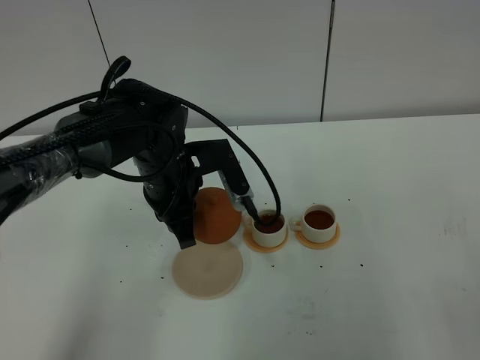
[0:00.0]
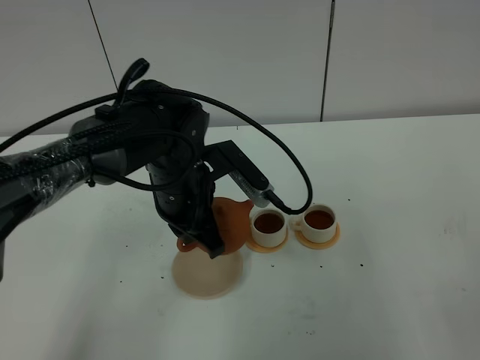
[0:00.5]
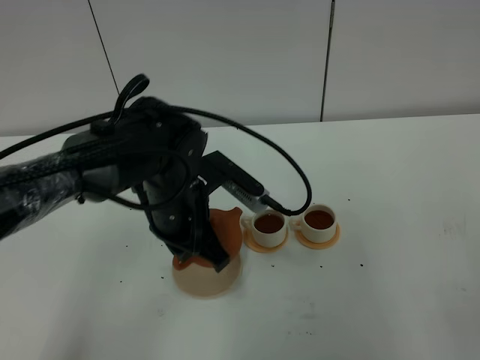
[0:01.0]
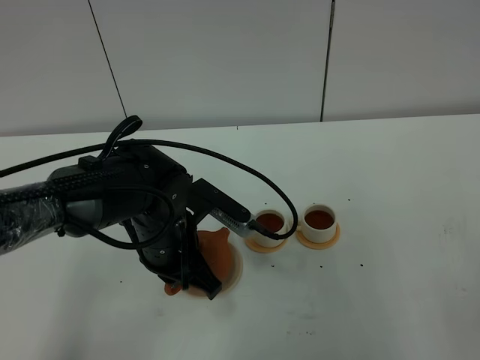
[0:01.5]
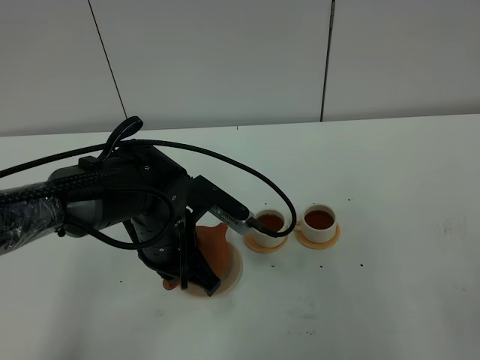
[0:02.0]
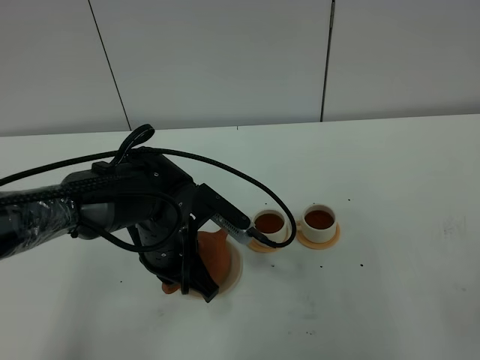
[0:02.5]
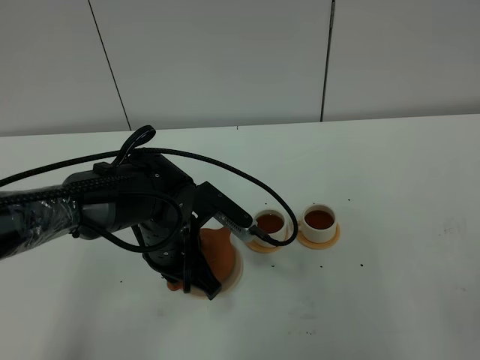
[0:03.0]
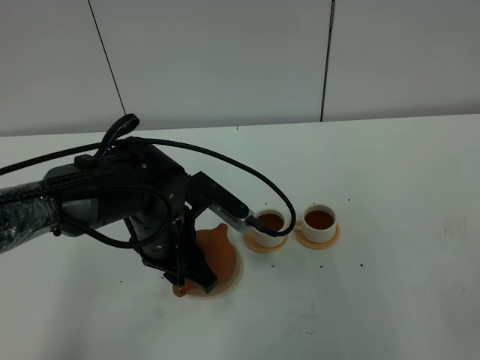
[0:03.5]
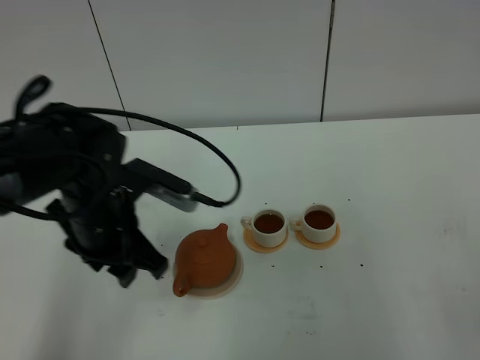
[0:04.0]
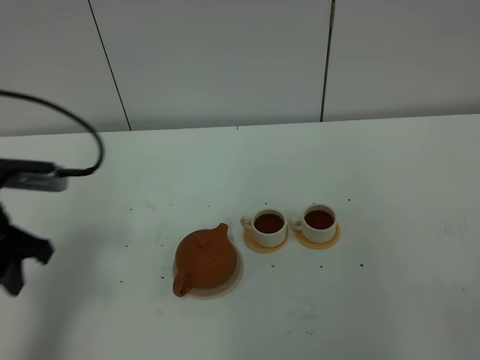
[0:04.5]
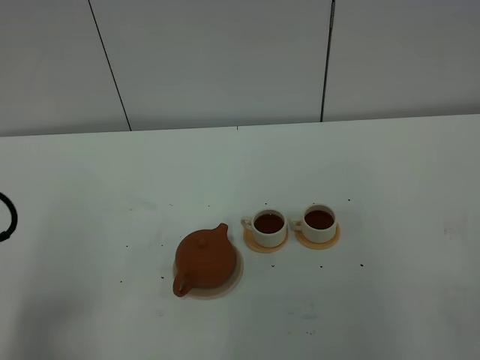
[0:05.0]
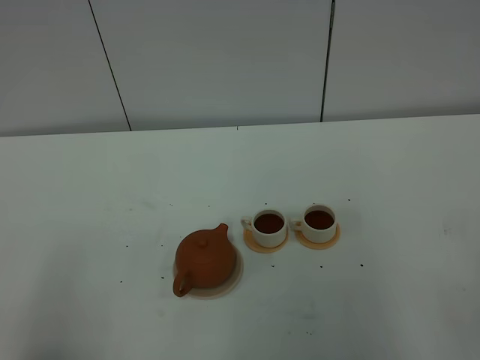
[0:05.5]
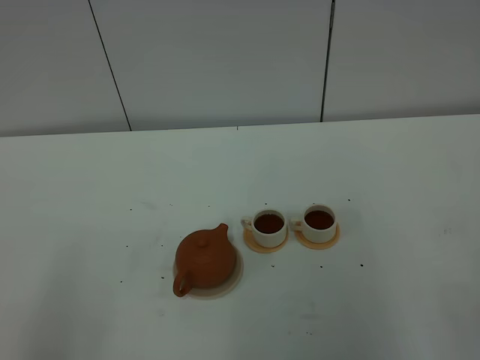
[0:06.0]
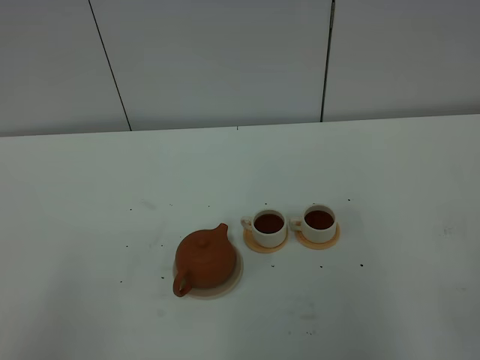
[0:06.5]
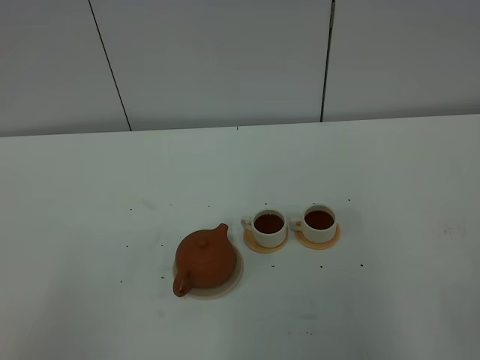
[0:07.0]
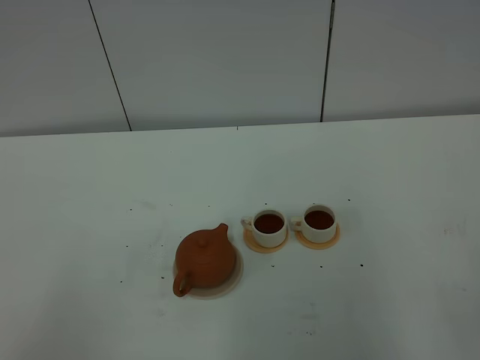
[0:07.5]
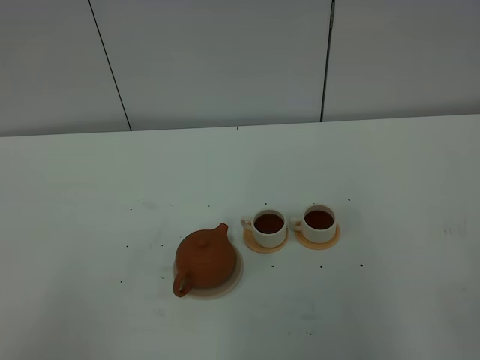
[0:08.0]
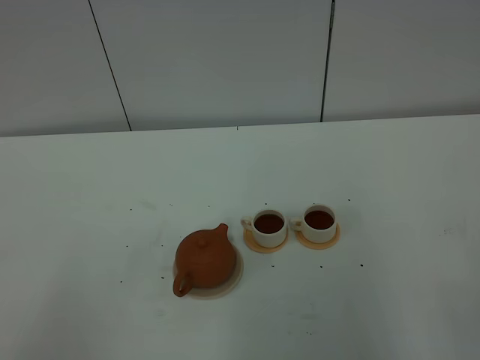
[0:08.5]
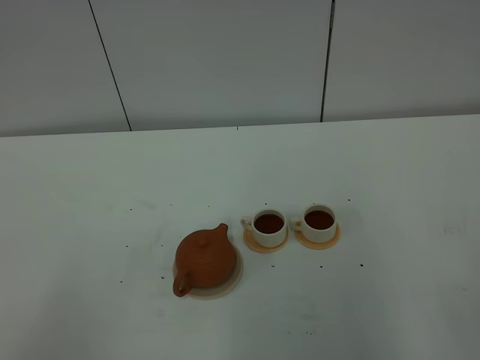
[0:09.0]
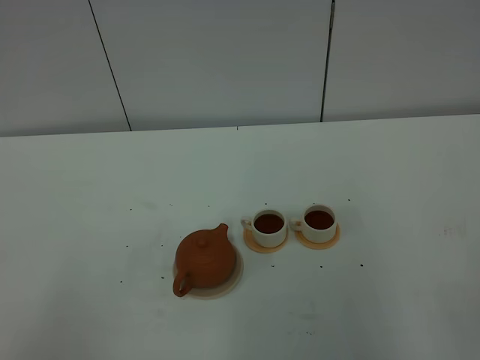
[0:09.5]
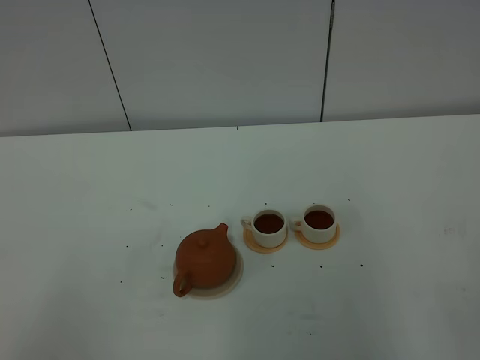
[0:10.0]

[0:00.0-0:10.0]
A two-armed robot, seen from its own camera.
Task of the whole recording: grasp the brown teapot and pour the tea into the two white teacups one by one, put the brown teapot back in its original place.
0:00.0 to 0:02.0: The left gripper goes roughly 5 cm backward.
0:02.0 to 0:04.0: The left gripper moves to the left and upward, about 10 cm, and opens.
0:04.0 to 0:06.0: The left gripper heads backward and to the left, covering some 30 cm, and closes its fingers.
0:08.0 to 0:10.0: Neither gripper changes place.

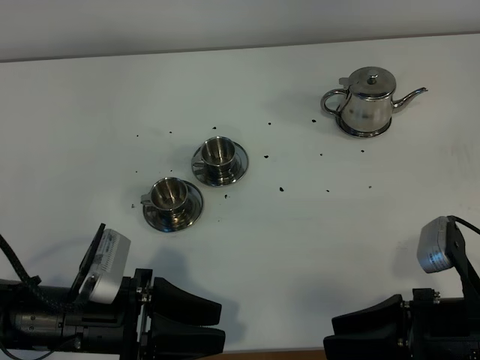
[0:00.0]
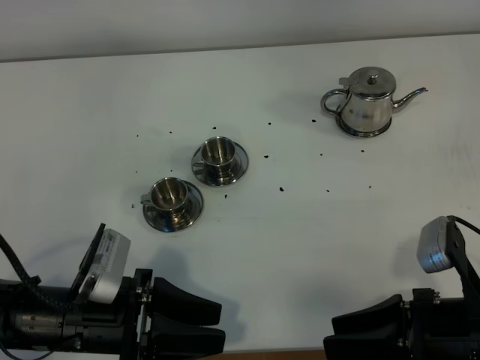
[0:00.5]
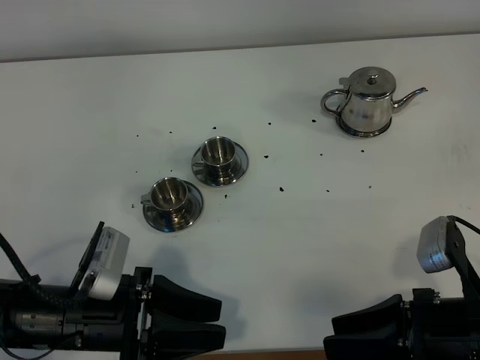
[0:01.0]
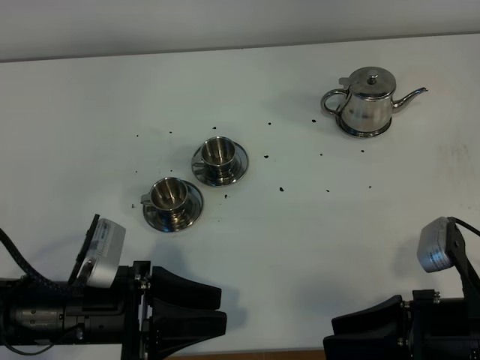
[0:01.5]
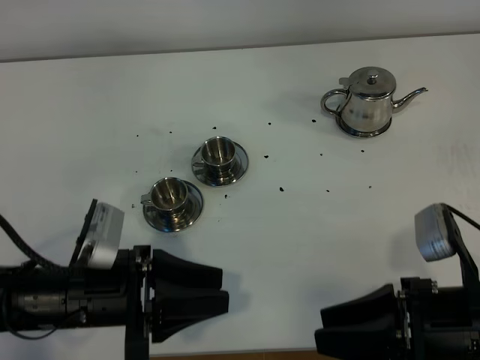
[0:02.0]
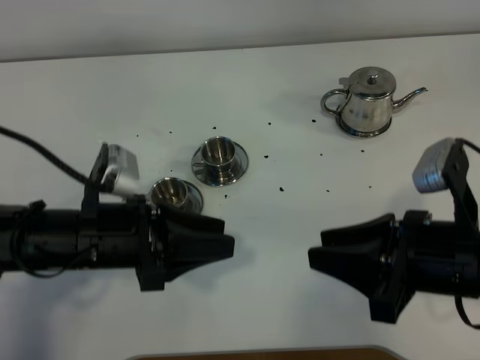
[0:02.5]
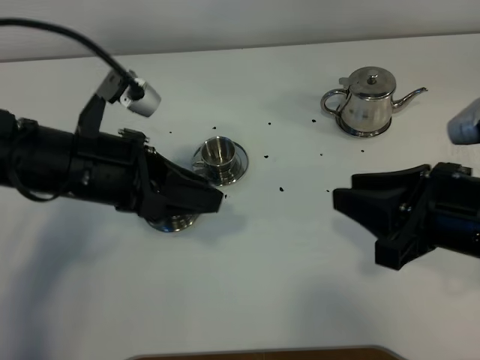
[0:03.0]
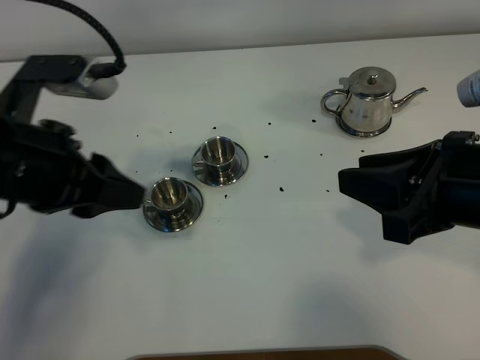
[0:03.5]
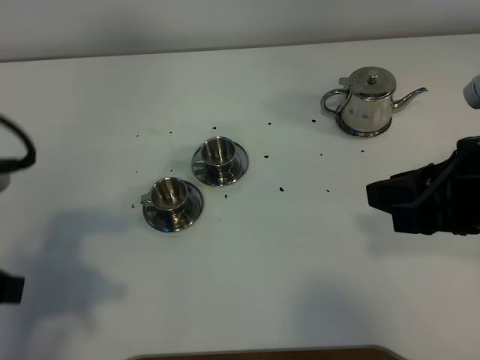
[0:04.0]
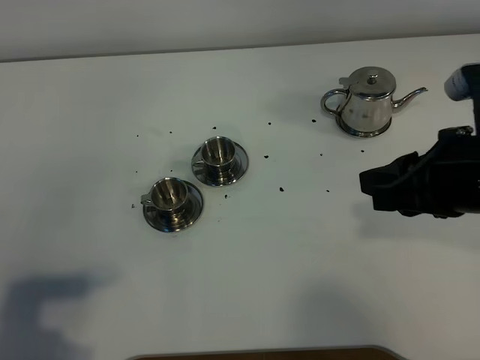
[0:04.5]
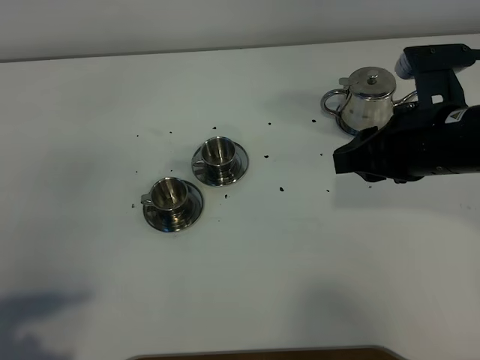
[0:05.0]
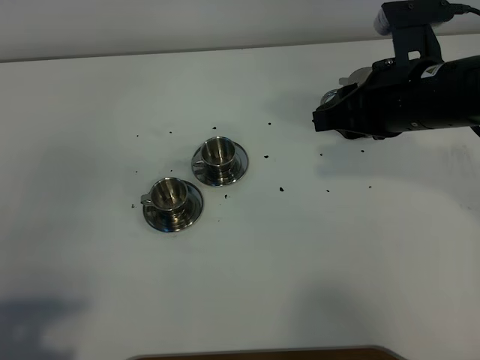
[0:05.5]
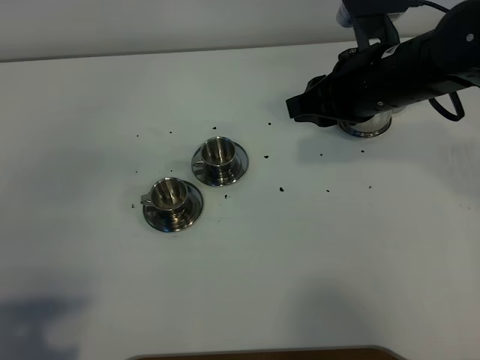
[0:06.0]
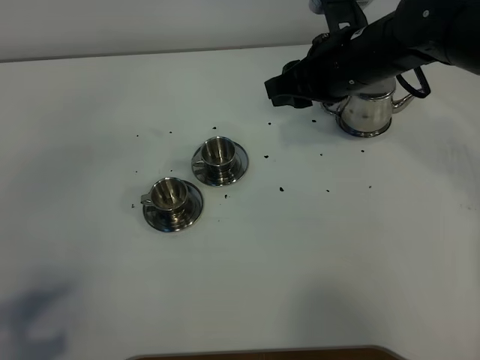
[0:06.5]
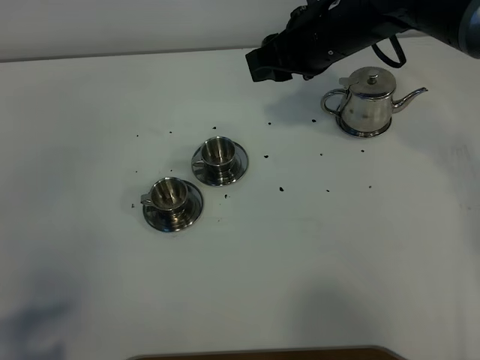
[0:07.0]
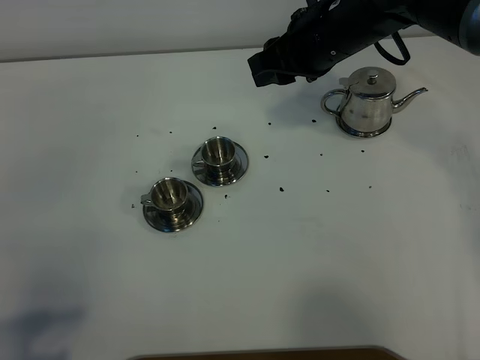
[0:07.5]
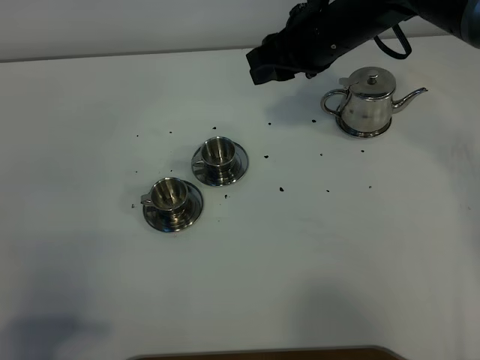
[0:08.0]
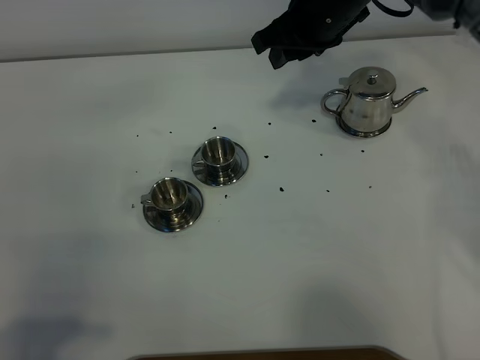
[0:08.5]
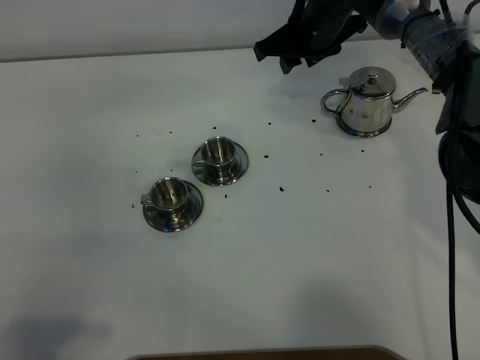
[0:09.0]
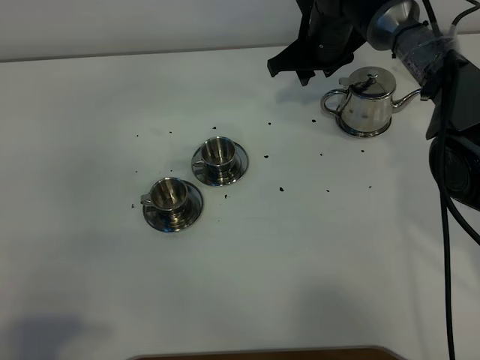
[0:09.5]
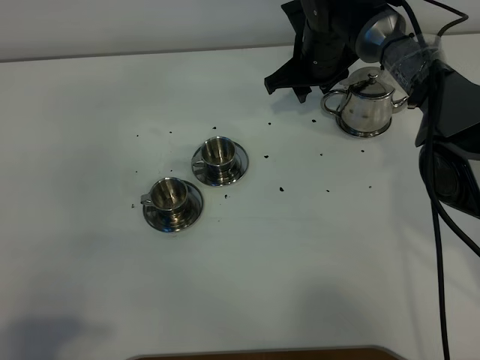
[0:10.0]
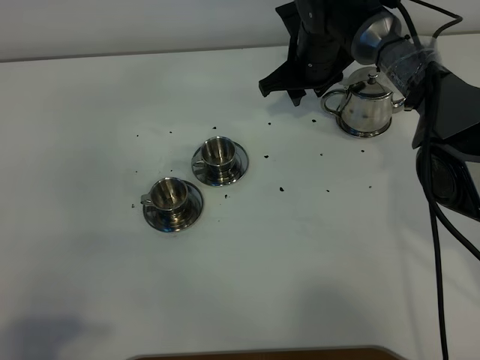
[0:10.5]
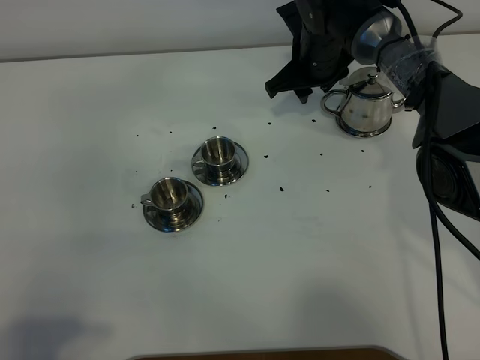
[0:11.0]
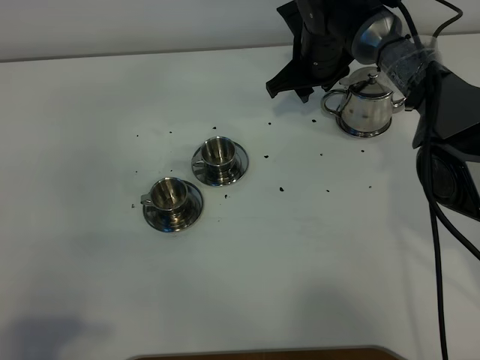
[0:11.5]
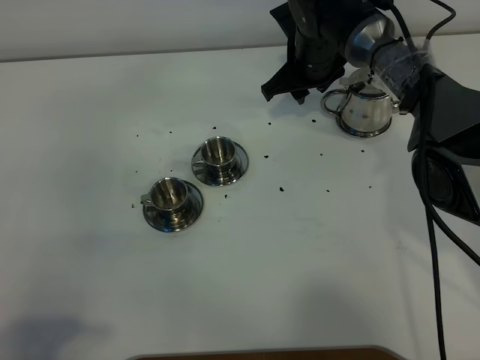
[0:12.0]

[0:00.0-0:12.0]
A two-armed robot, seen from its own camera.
Task of the whole recording: grasp the stainless steel teapot and pour the tea into the two stainless steel teacups one by one, put the stainless steel teapot back in its original place.
0:00.0 to 0:02.0: The grippers make only small movements.
0:02.0 to 0:04.0: The right gripper travels upward and forward by roughly 15 cm. The left gripper shifts approximately 15 cm upward and to the left, and closes its fingers.
0:04.0 to 0:06.0: The left gripper heads backward, covering about 10 cm. The right gripper heads forward and to the left, covering some 20 cm.
0:06.0 to 0:08.0: The right gripper heads forward, covering roughly 5 cm.
0:08.0 to 0:10.0: The right gripper goes about 15 cm downward and forward.
0:10.0 to 0:12.0: The grippers stay close to where they were, moving slightly.

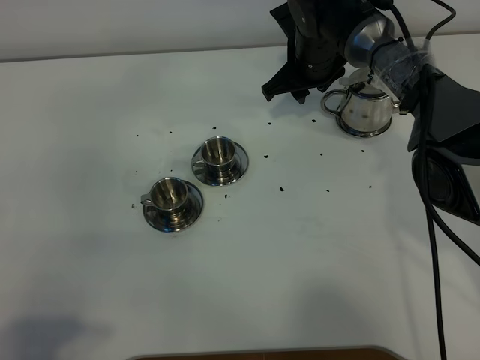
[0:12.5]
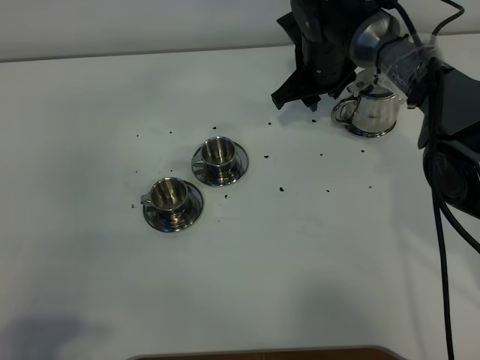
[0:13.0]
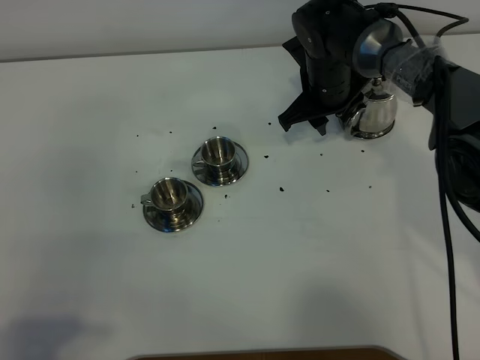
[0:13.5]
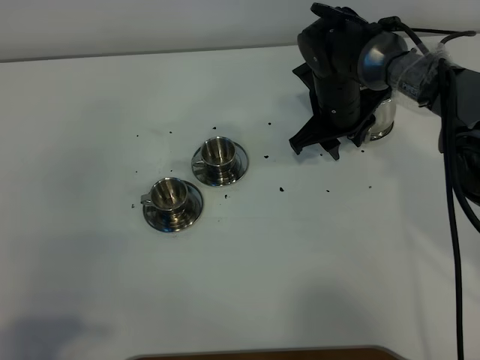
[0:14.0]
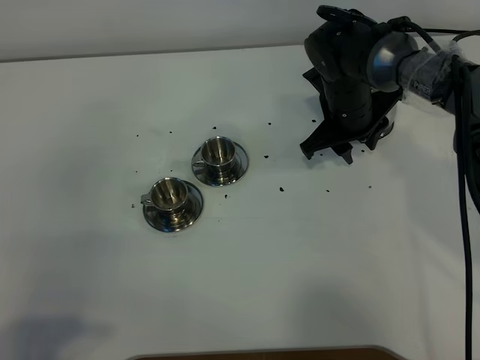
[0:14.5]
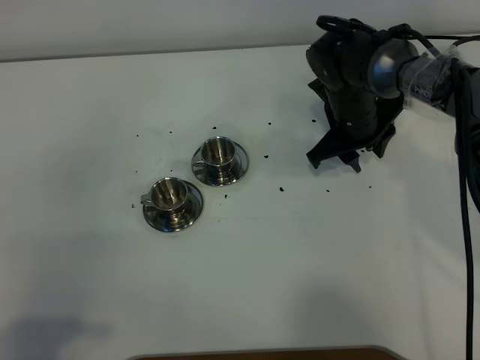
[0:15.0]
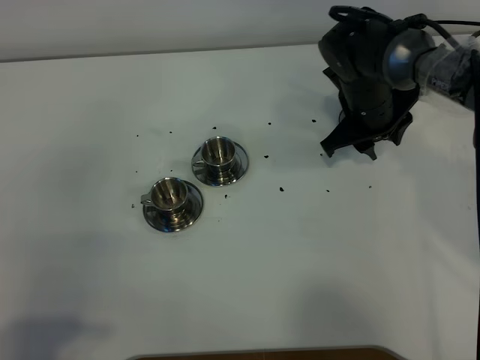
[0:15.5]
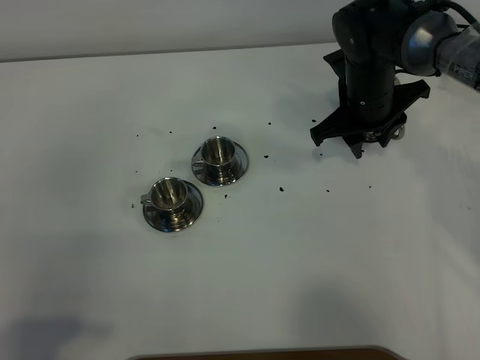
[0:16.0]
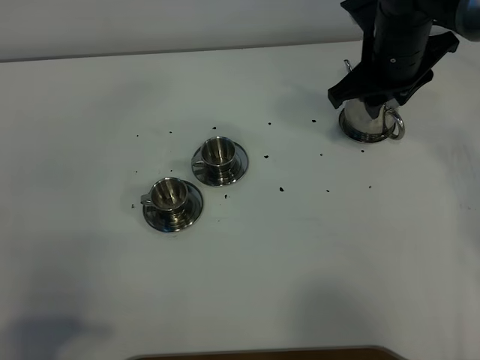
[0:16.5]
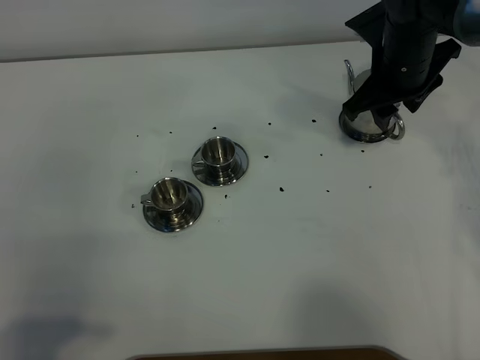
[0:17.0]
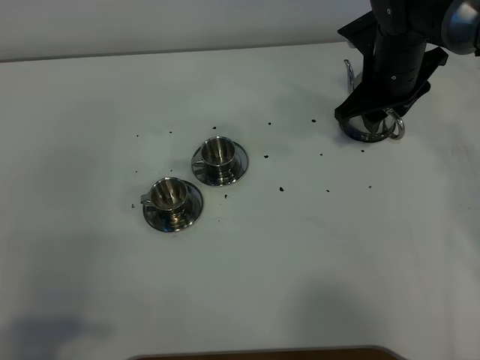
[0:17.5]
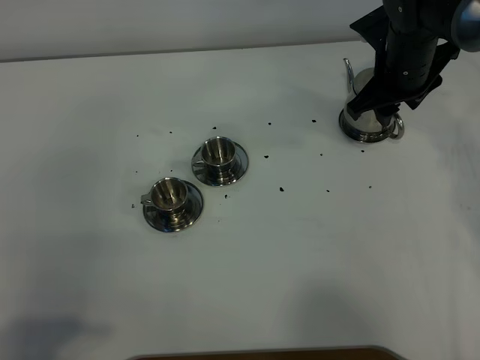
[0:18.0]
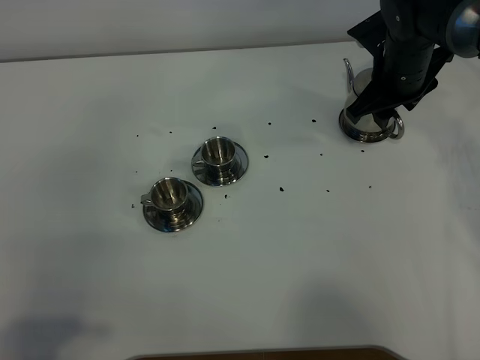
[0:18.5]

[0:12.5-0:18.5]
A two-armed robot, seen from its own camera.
Task of the whole recording: grasp the stainless steel teapot and pour the tea into the two stainless steel teacups one by one, put the stainless steel teapot back in its original place.
0:12.5 to 0:14.5: The right gripper shifts some 5 cm backward.
0:14.5 to 0:16.5: The right gripper moves upward, some 10 cm.
0:16.5 to 0:18.5: The right gripper goes approximately 5 cm downward.
